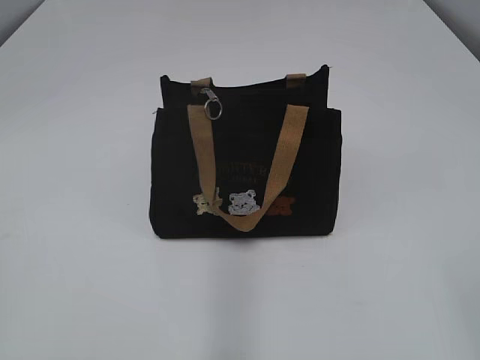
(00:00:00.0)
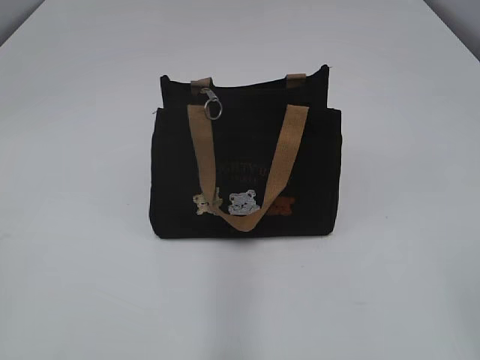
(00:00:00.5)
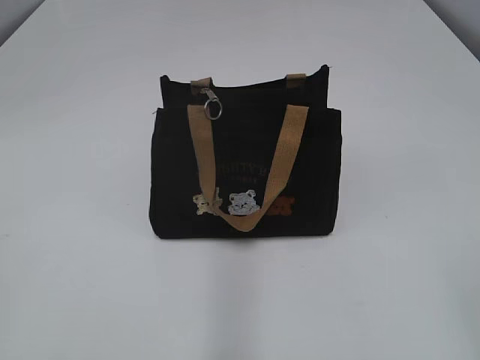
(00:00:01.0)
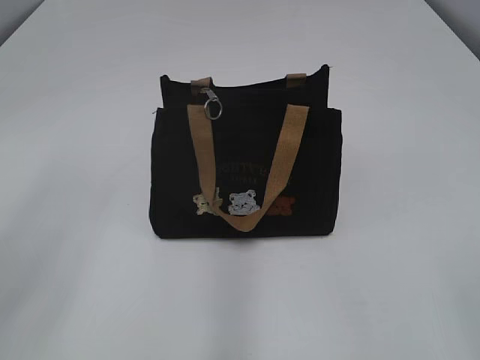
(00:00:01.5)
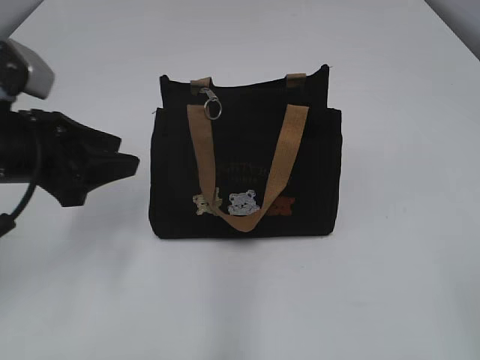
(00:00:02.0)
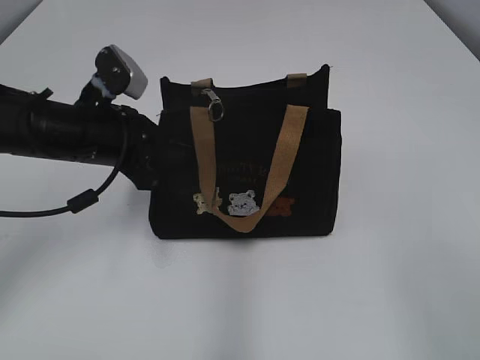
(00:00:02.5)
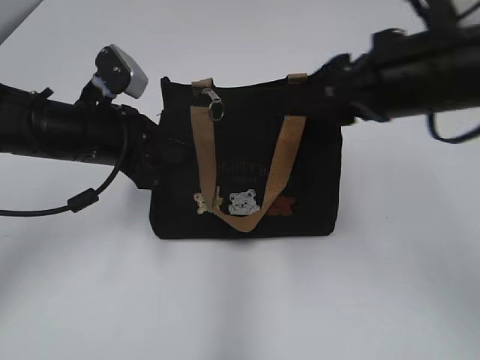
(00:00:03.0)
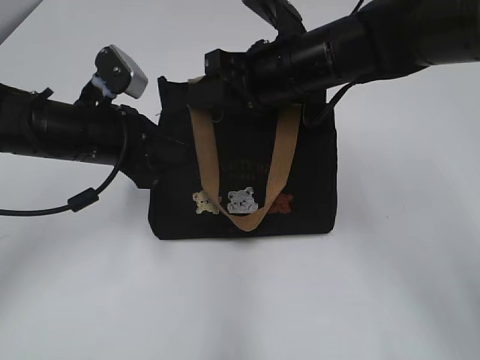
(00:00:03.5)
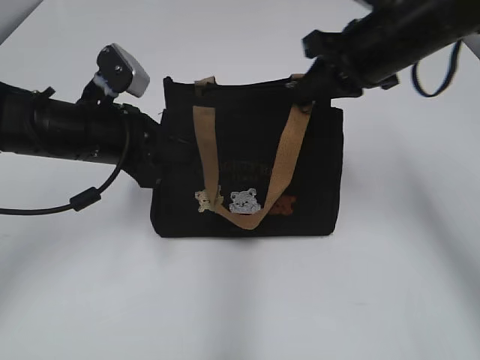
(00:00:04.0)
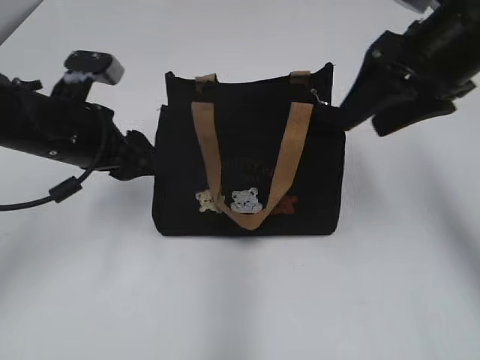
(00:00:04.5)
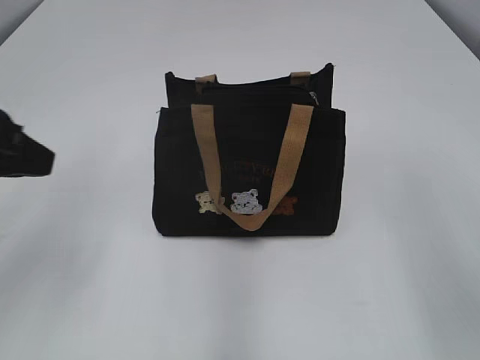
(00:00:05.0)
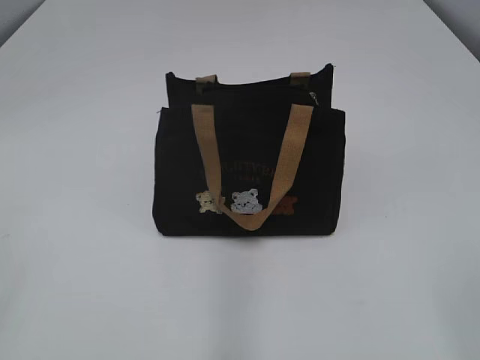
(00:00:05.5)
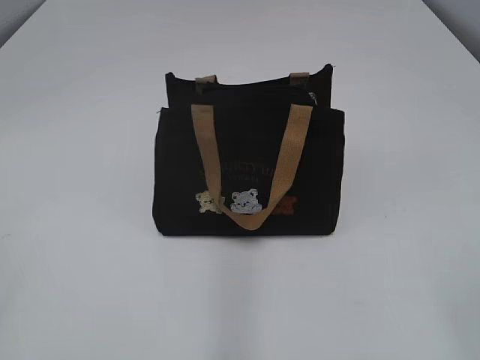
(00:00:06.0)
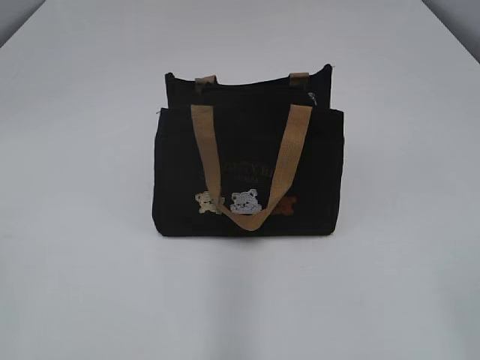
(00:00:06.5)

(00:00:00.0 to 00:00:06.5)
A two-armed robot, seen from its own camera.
Step, 00:00:00.0 - 00:00:04.0: Pull open the zipper with your right hand.
00:00:02.0 - 00:00:04.5: The left gripper moves approximately 5 cm, and closes, then reopens. The right gripper heads forward, covering approximately 30 cm, and opens its fingers.
00:00:04.5 - 00:00:06.5: The right gripper travels backward by about 30 cm, while the left gripper goes about 35 cm backward and to the left, and closes up.

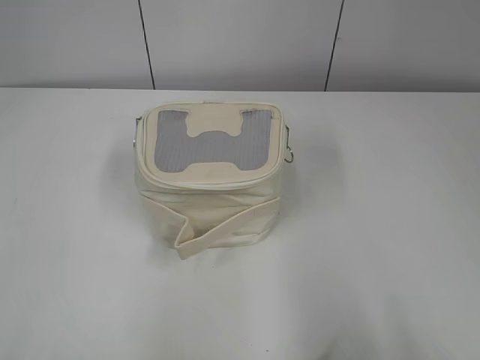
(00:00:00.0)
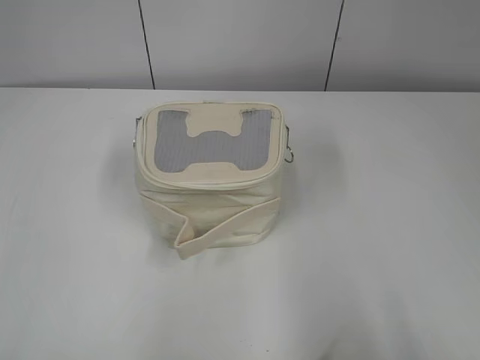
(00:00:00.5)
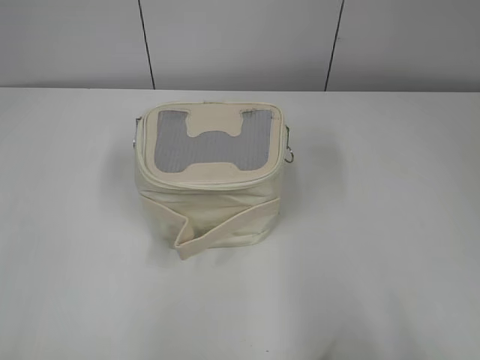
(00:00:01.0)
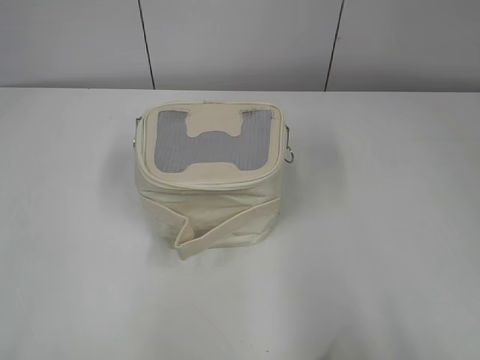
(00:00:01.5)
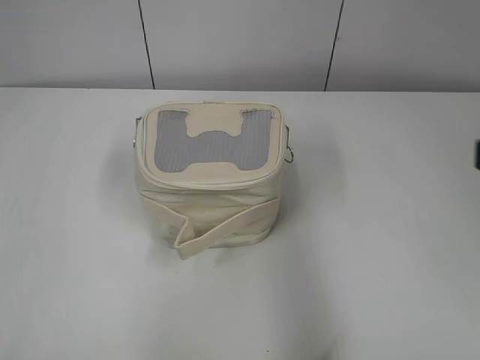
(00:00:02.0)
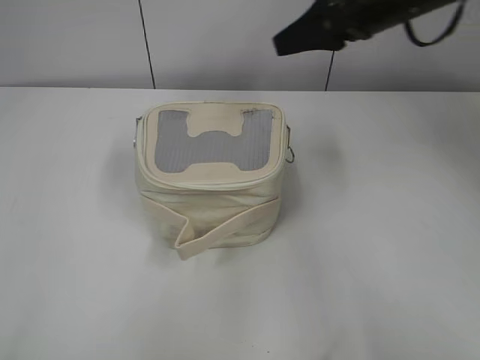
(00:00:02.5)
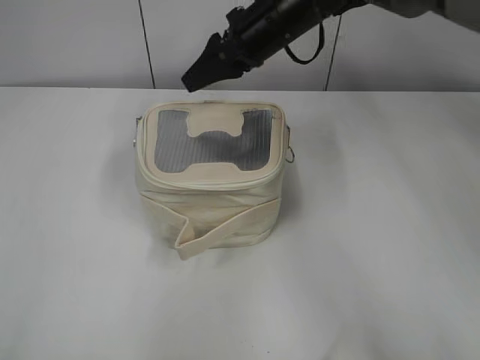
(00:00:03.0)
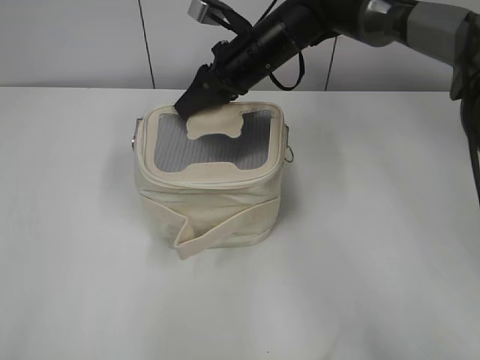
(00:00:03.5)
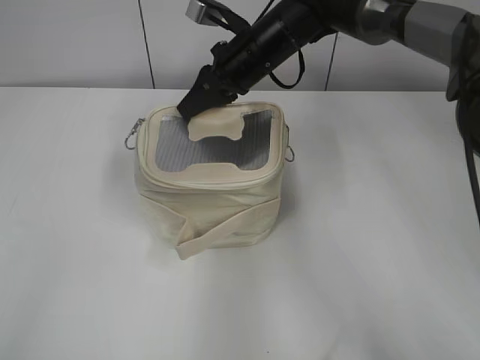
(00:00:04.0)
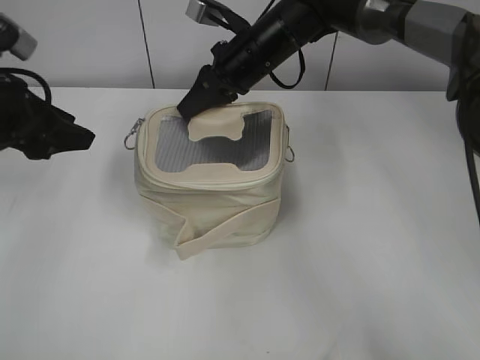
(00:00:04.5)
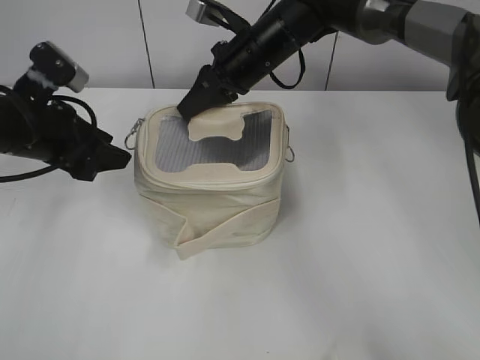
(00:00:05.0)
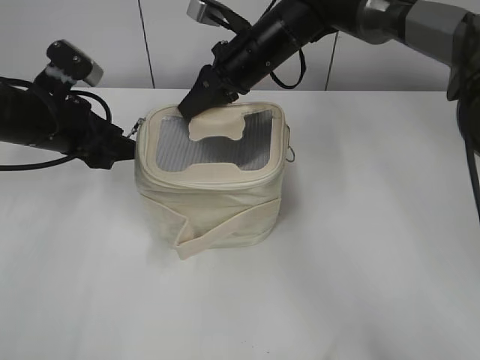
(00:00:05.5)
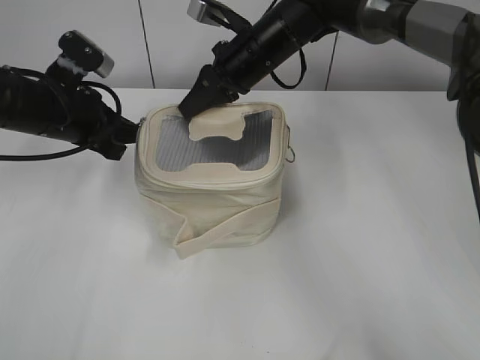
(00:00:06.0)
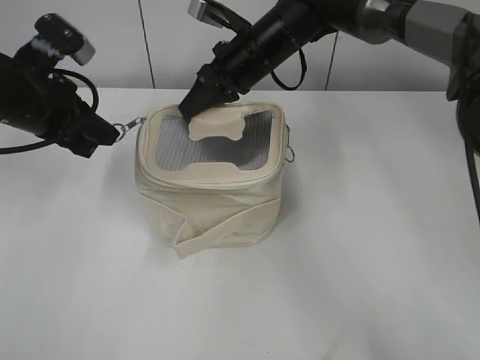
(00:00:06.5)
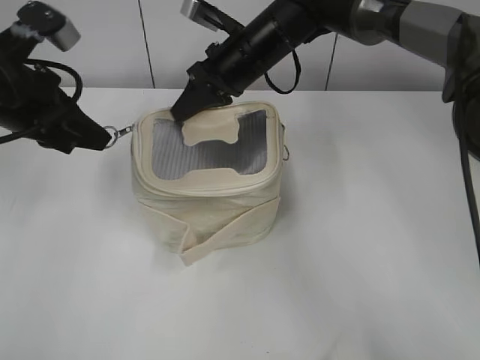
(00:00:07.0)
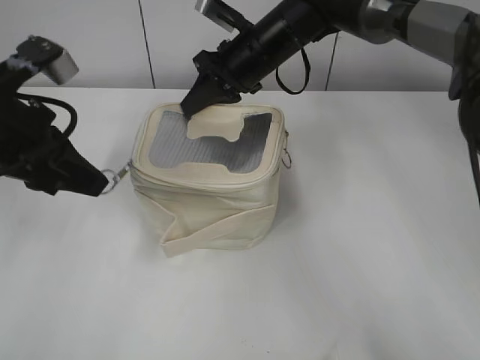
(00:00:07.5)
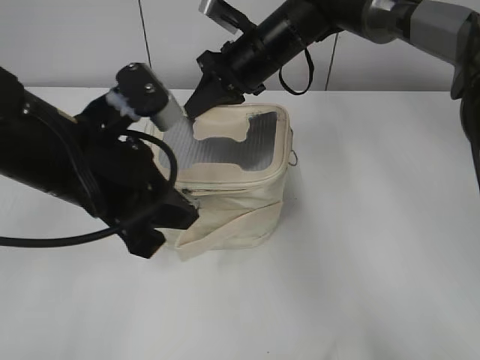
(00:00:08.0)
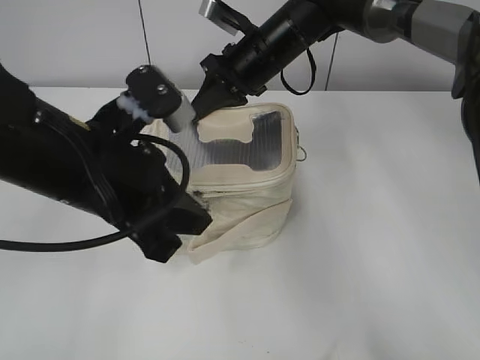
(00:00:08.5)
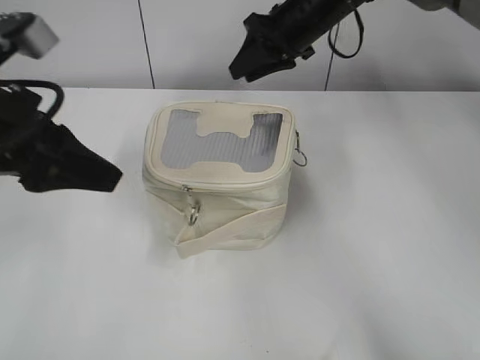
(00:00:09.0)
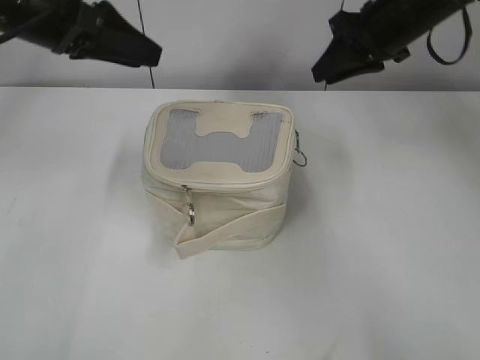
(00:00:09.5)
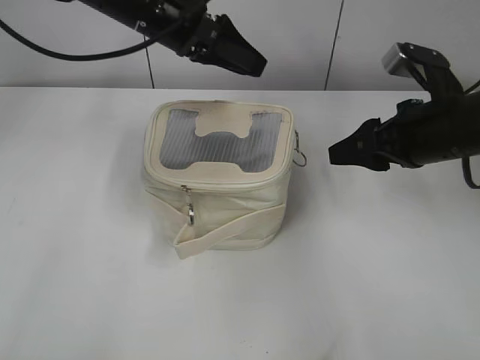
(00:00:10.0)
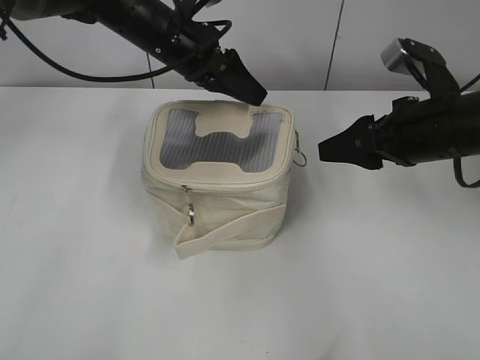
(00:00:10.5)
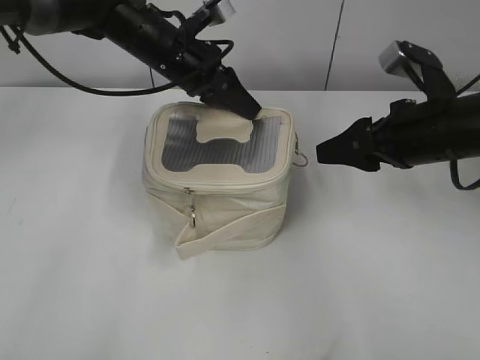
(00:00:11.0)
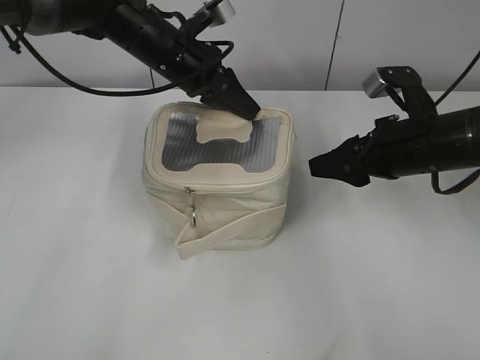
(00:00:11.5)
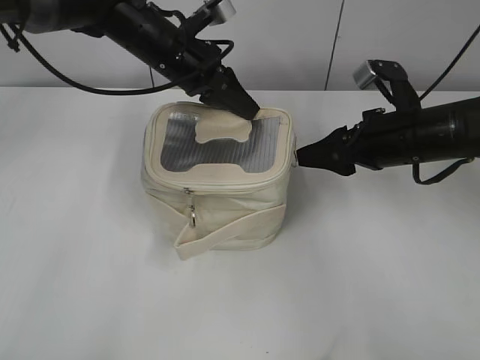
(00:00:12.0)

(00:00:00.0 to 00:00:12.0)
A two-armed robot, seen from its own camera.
Step, 00:00:00.0 - 00:00:08.5: Zip up the bag with your left hand.
00:00:02.0 - 00:00:04.0: The right gripper goes some 40 cm forward and to the left, and closes; the left gripper heads forward, covering roughly 15 cm.
00:00:04.0 - 00:00:06.0: The left gripper is displaced forward and downward by about 25 cm, and closes up.
00:00:06.0 - 00:00:08.0: The left gripper heads backward and to the right, covering some 15 cm.
00:00:08.0 - 00:00:10.0: The left gripper moves forward, roughly 20 cm, and opens, while the right gripper moves to the right and backward, some 25 cm, and opens its fingers.
00:00:10.0 - 00:00:12.0: The right gripper ends up approximately 5 cm from where it was. Meanwhile the left gripper is displaced downward by some 5 cm, and closes its fingers.

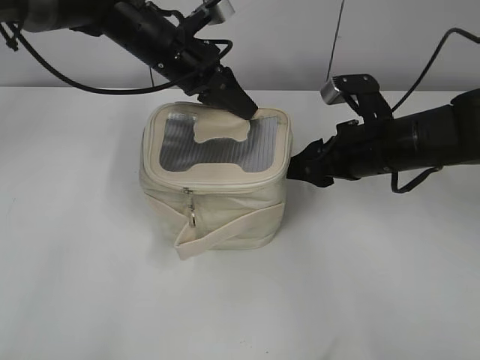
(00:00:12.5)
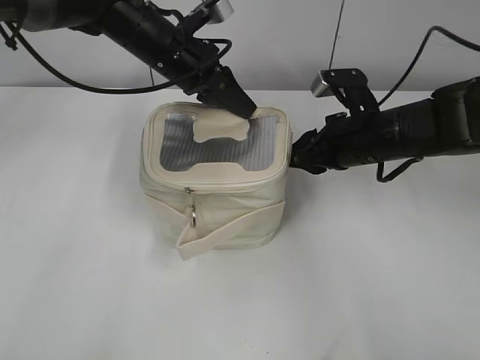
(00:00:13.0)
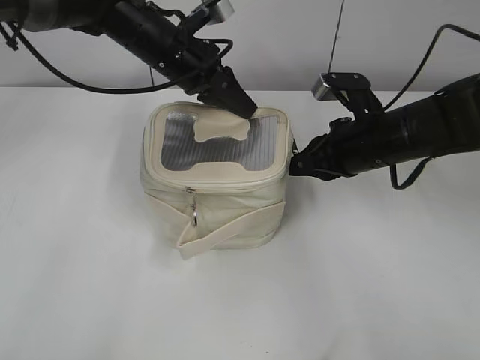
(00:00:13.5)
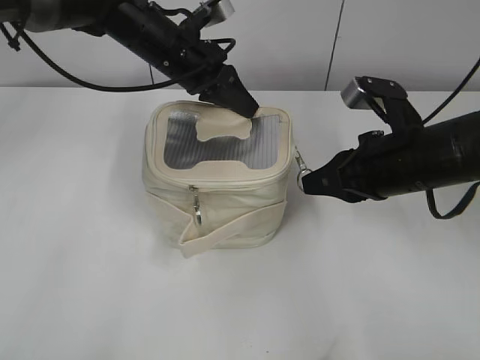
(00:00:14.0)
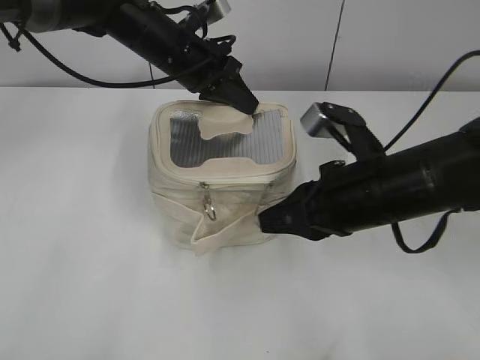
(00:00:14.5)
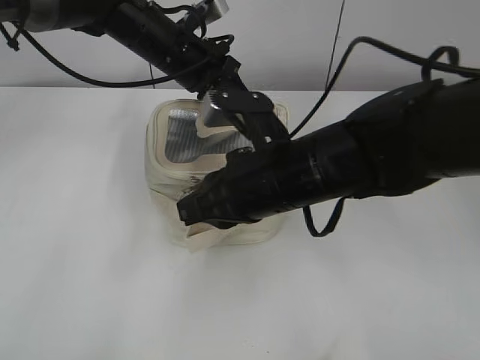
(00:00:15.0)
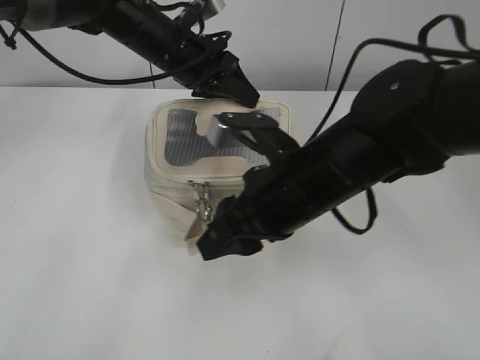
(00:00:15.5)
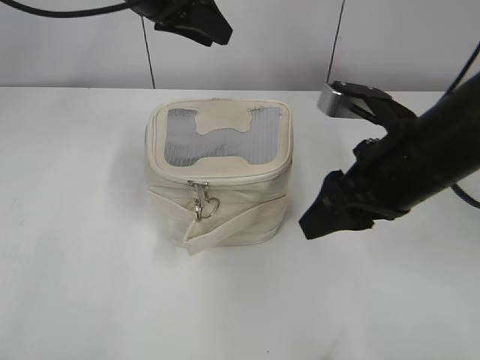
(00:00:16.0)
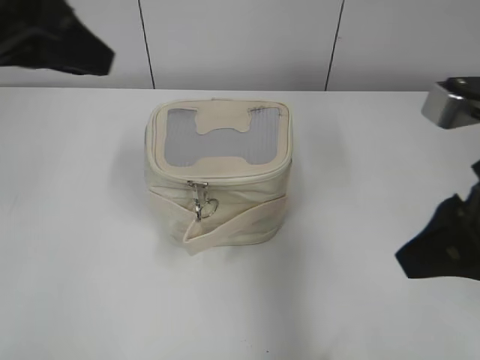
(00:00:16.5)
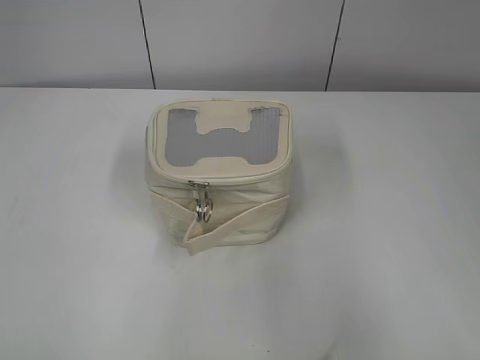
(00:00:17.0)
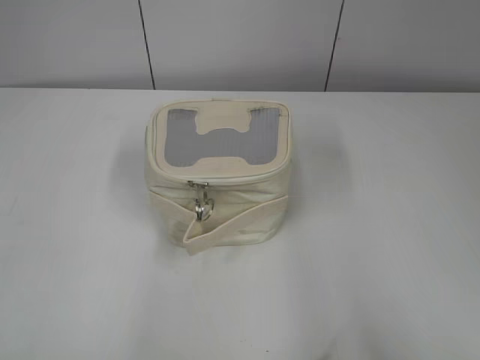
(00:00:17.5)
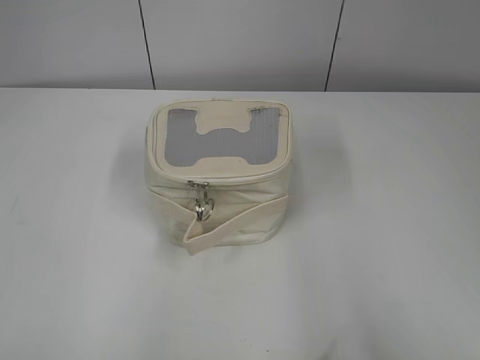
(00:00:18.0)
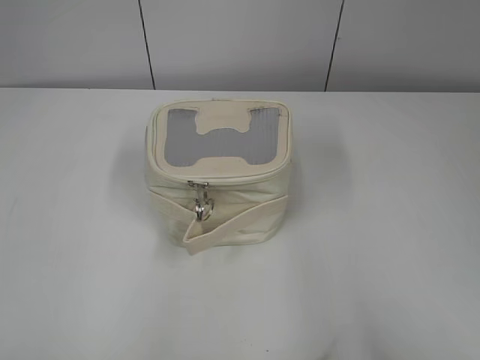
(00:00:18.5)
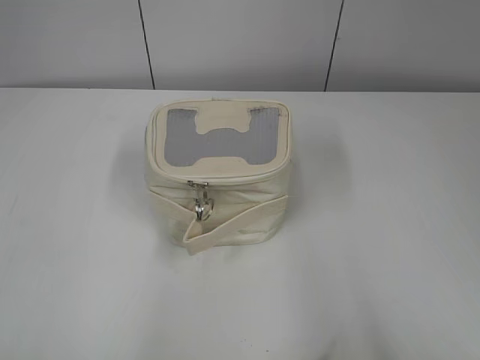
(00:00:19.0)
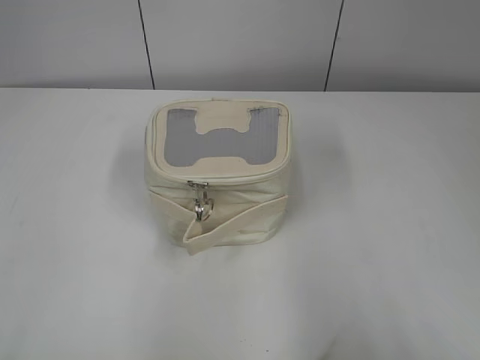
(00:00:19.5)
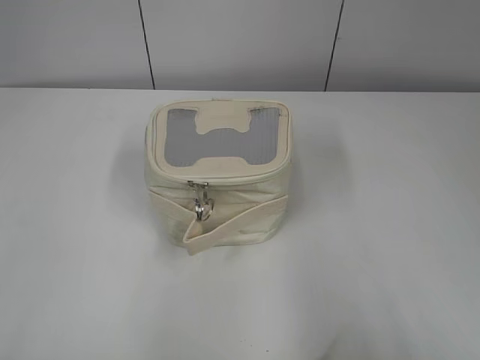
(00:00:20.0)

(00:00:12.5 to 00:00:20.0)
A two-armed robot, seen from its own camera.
Step, 00:00:12.5 - 00:00:15.0: Zip up the bag with your right hand.
00:00:12.5 - 00:00:14.5: The right gripper travels backward by about 10 cm, and closes up.
00:00:14.5 - 00:00:16.5: The left gripper moves backward, upward and to the left, about 25 cm, and opens up. Meanwhile the right gripper goes about 15 cm upward, backward and to the right, and opens its fingers.
00:00:16.5 - 00:00:18.0: The right gripper travels backward and to the right by about 20 cm, while the left gripper heads backward and to the left, covering some 30 cm.
